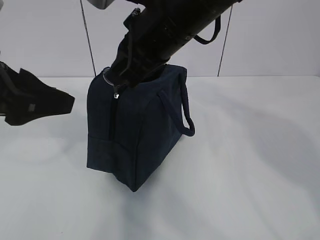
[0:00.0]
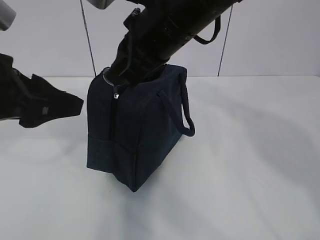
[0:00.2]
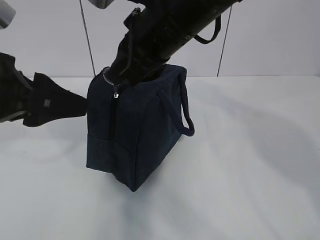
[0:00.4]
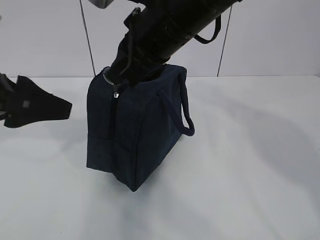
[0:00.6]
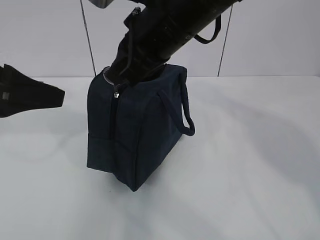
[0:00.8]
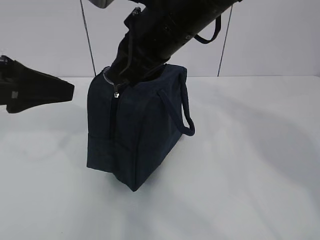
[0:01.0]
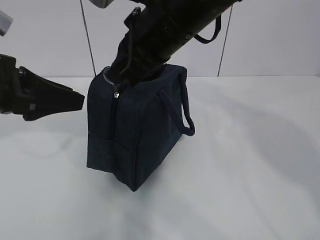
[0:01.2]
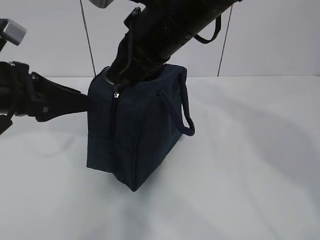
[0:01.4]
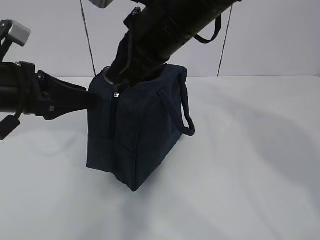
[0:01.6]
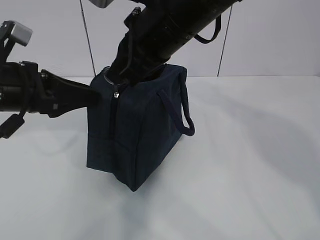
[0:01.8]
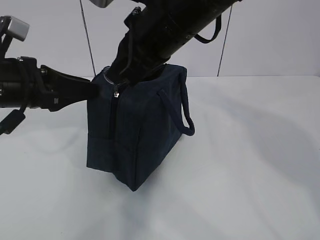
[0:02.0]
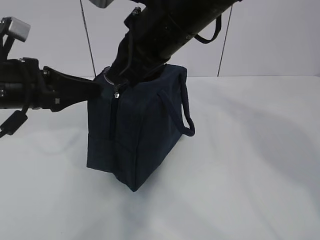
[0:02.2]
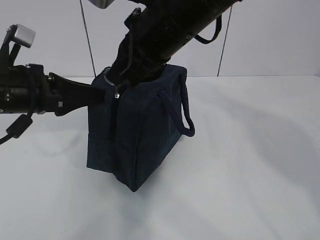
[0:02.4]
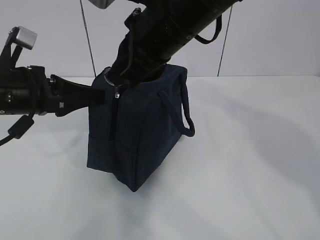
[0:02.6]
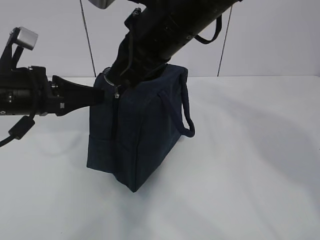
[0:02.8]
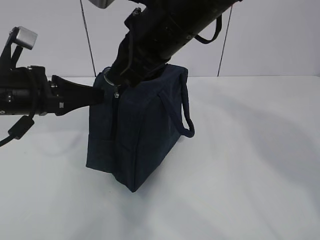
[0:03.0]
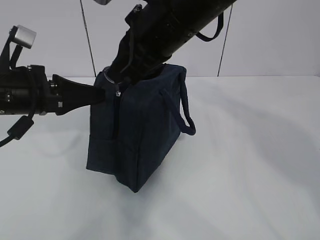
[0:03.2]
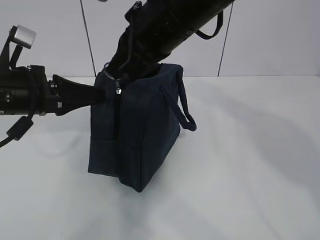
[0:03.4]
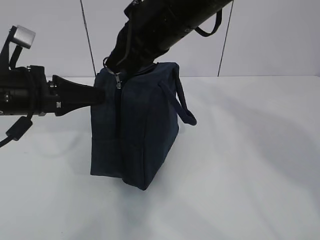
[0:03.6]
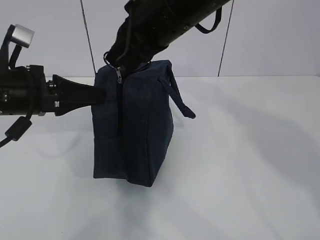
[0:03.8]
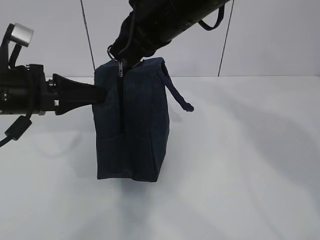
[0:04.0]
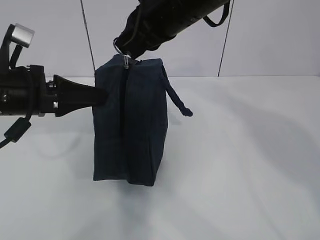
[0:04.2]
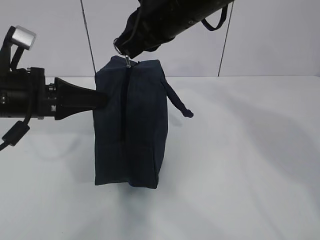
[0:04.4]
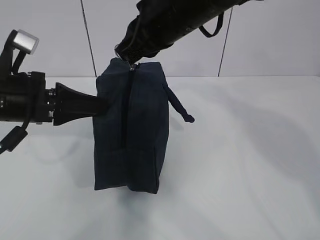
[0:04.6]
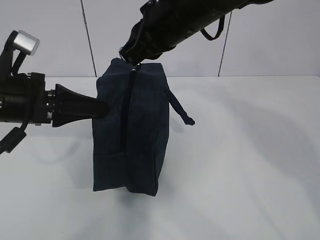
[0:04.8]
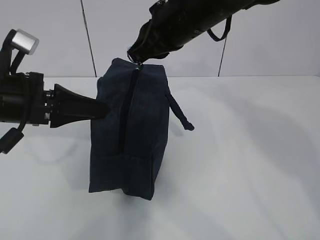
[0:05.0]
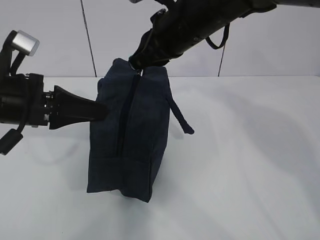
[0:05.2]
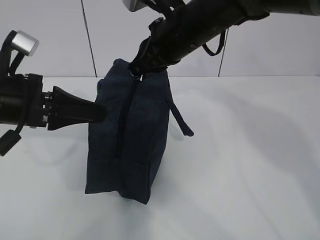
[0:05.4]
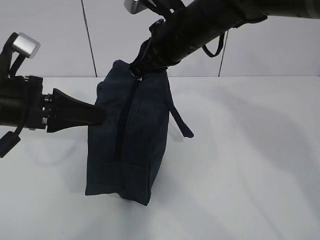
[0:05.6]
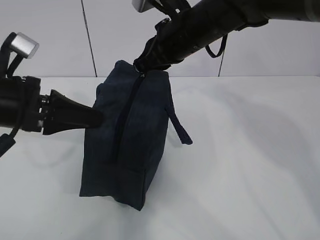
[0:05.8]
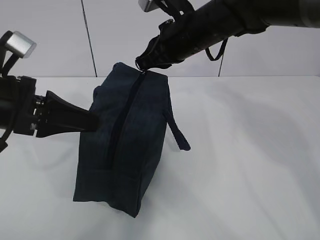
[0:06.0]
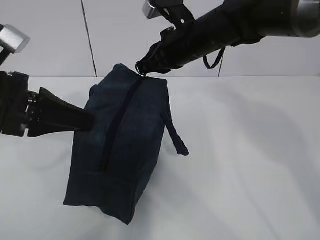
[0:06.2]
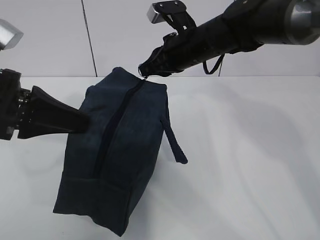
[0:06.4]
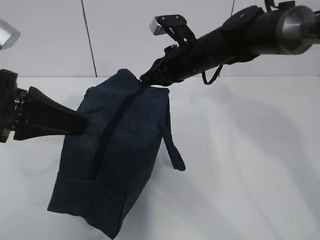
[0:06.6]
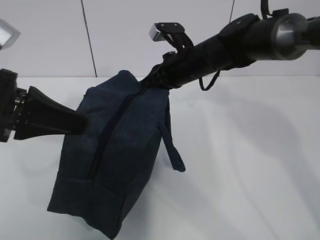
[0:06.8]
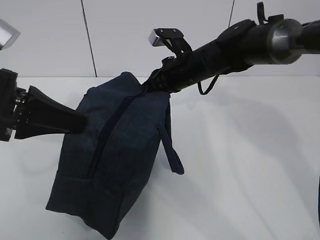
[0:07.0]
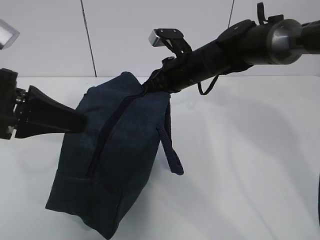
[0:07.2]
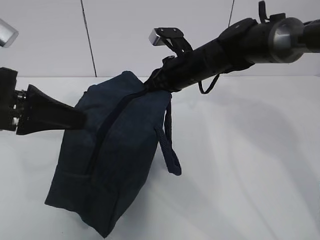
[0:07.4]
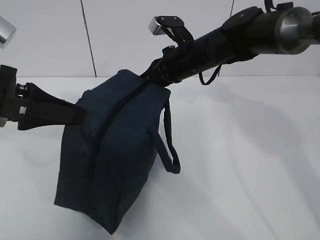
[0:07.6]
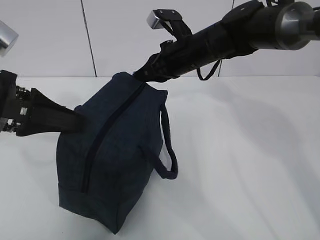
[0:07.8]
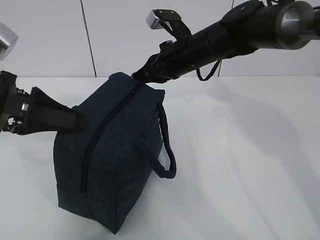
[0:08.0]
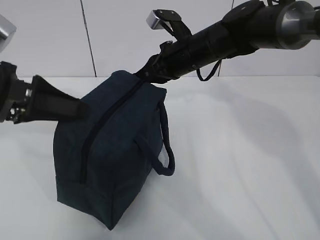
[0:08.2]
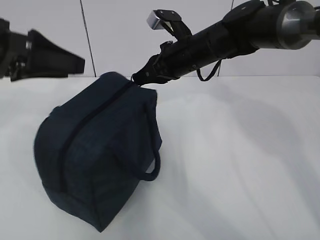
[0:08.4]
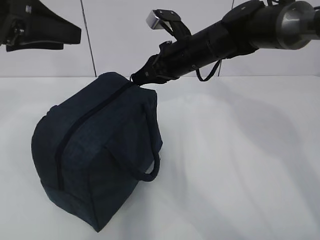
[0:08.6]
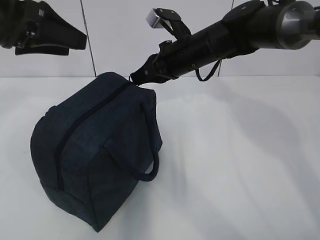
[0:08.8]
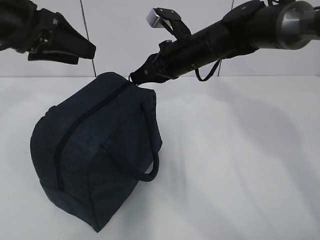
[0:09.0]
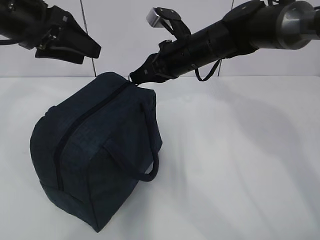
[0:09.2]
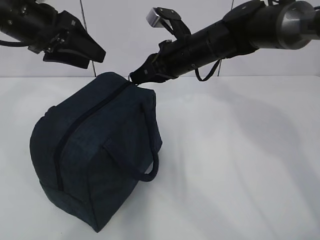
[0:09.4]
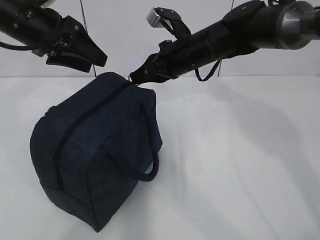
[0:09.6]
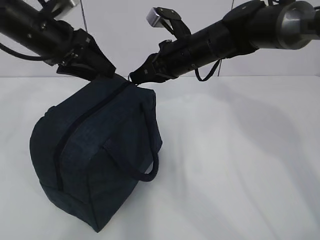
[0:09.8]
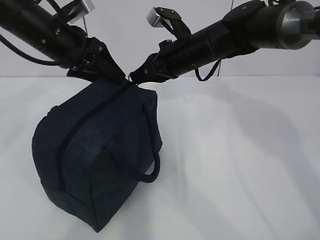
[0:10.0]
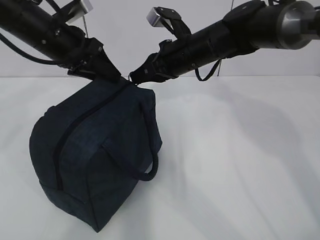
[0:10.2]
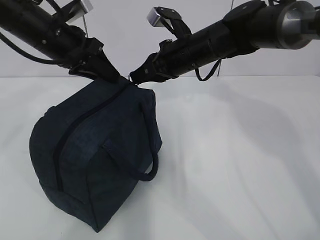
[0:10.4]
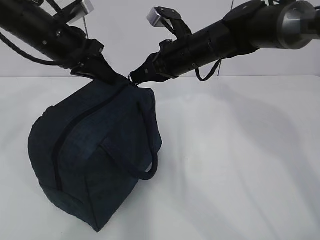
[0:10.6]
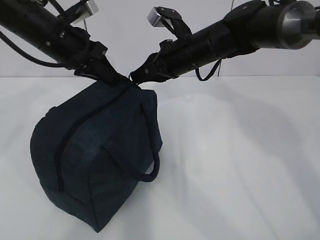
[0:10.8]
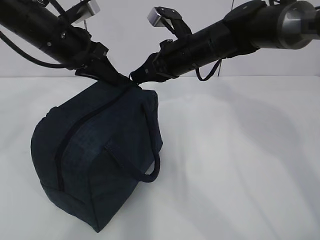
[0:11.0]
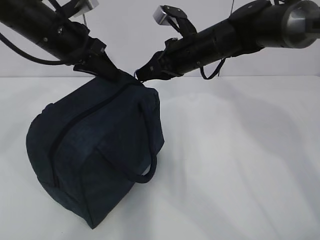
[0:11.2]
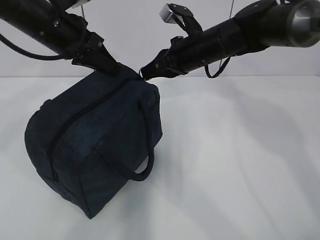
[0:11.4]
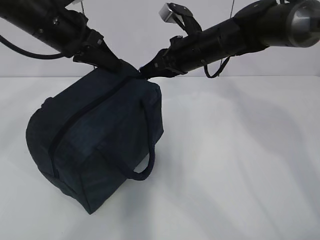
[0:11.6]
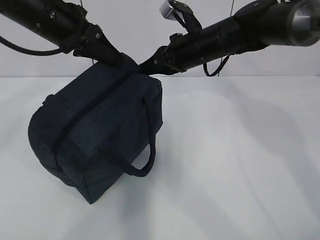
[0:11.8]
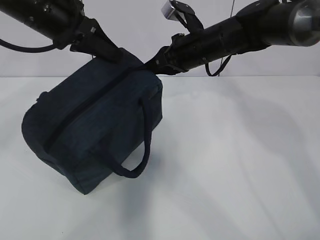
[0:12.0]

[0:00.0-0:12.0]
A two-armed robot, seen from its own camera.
Step, 0:01.6 to 0:02.4: Grab the lunch bag with your left hand.
0:00.0 to 0:01.6: The left gripper moves forward and downward, roughly 10 cm.
0:01.6 to 0:03.0: The left gripper closes up.
0:03.0 to 0:04.4: The grippers move only a little.
0:04.4 to 0:06.0: The right gripper shifts roughly 10 cm downward and forward.
0:06.0 to 0:07.6: The right gripper goes about 5 cm downward.
0:07.6 to 0:09.0: The left gripper moves forward, about 10 cm, and opens.
0:09.0 to 0:10.4: The left gripper moves forward and downward, about 10 cm, and closes.
0:10.4 to 0:12.0: The left gripper changes place by roughly 5 cm, and closes up.

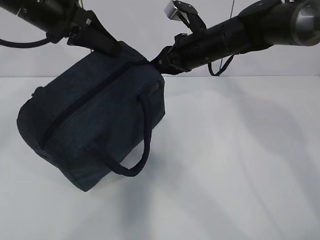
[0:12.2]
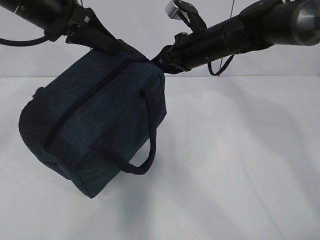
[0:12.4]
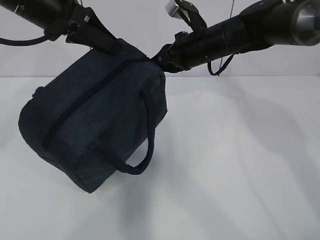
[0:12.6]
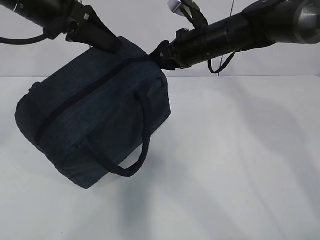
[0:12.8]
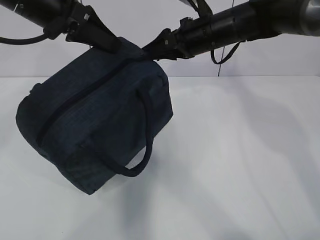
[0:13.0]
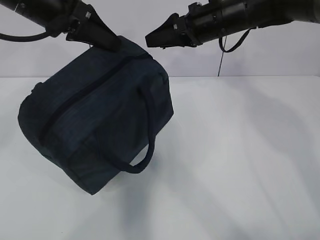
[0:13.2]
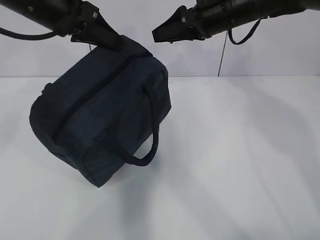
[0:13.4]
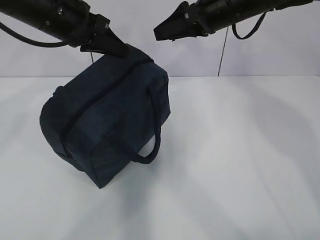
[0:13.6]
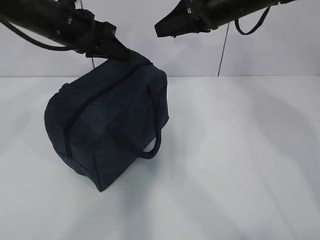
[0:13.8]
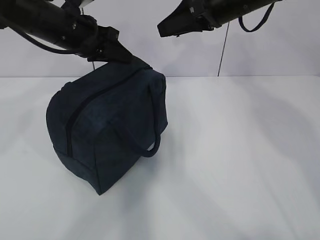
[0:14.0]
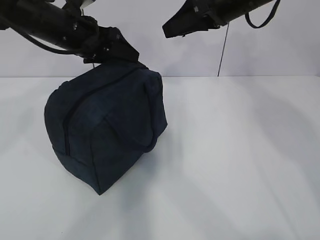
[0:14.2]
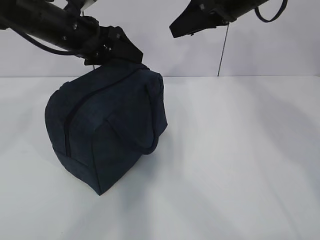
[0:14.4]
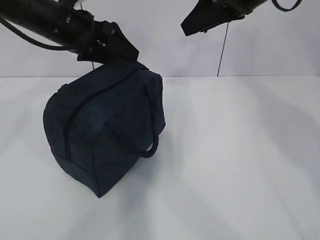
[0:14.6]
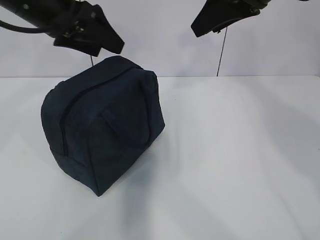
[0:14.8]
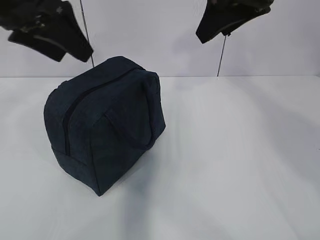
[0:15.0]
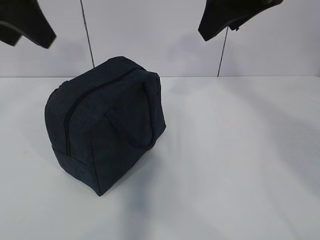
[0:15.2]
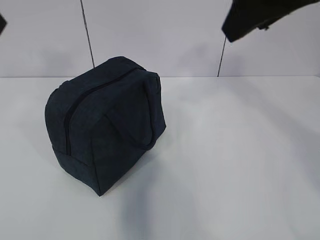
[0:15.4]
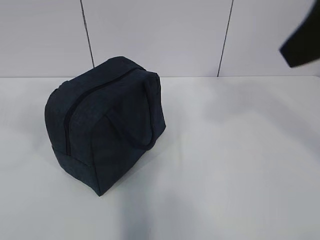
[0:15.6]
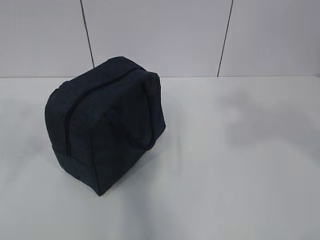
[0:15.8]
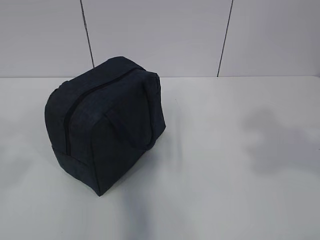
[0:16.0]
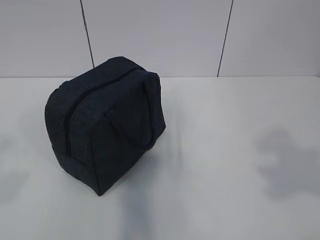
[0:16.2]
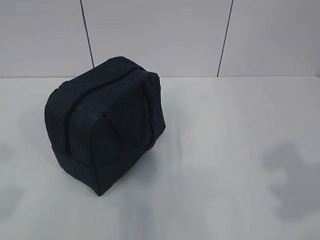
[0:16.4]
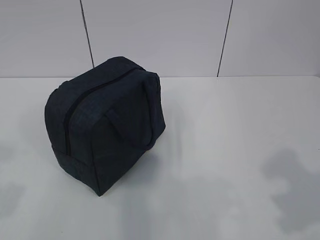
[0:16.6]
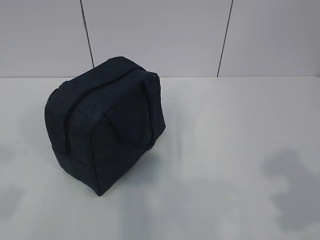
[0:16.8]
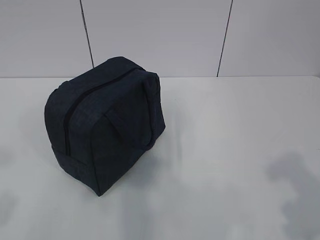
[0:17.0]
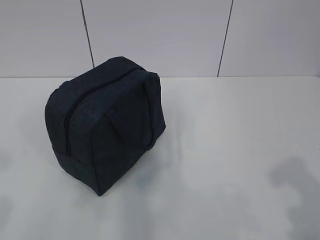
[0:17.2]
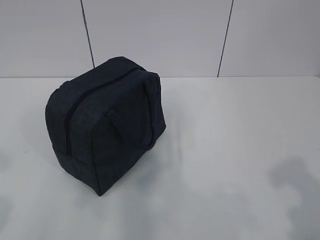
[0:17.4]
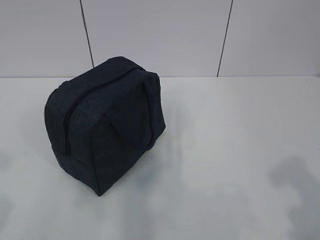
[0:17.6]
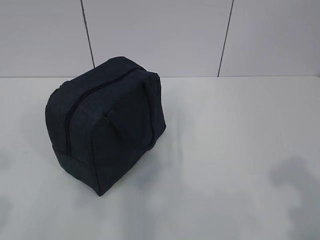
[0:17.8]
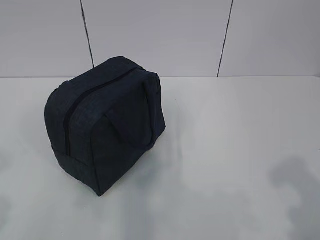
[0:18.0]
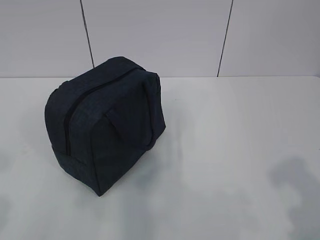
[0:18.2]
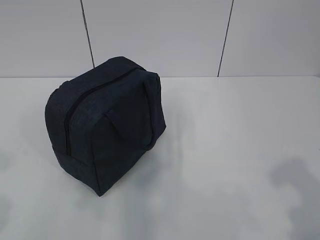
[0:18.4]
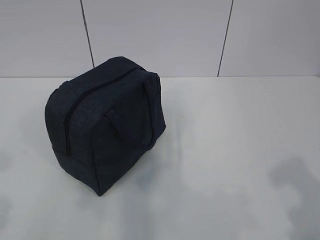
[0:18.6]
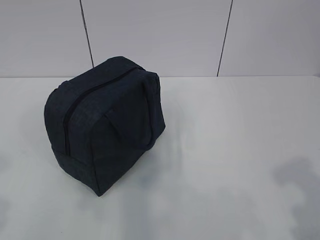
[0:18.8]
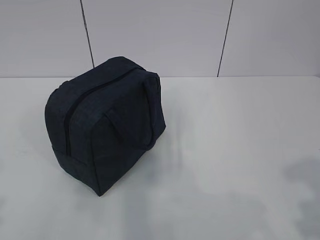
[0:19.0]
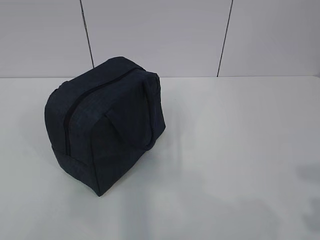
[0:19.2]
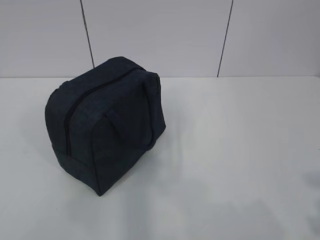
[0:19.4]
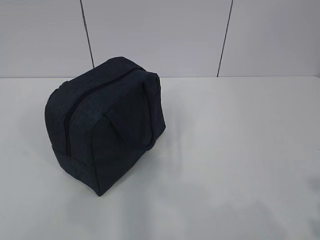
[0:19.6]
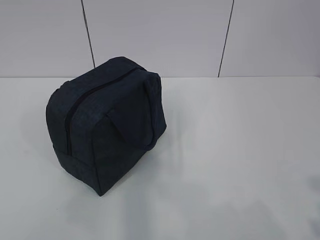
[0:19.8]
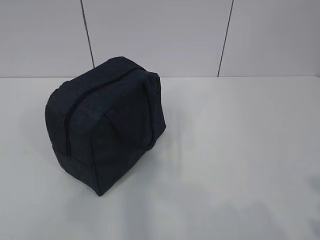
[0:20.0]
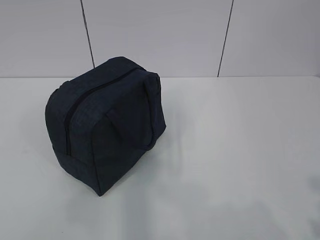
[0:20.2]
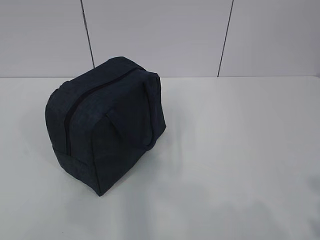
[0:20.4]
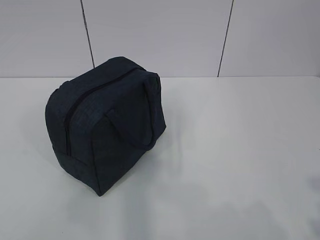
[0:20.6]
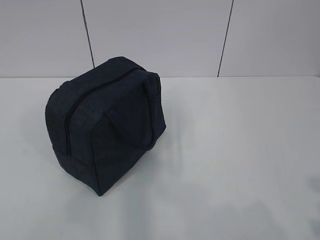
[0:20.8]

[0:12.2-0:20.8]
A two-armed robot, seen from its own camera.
0:12.2 to 0:13.6: The right gripper heads upward, covering roughly 10 cm, and opens its fingers.
0:13.6 to 0:15.0: The two grippers go roughly 10 cm backward and upward. The left gripper opens.
0:15.0 to 0:16.6: The right gripper goes some 30 cm backward, while the left gripper heads backward and to the left, covering approximately 30 cm.
0:19.4 to 0:20.8: Neither gripper changes place.
